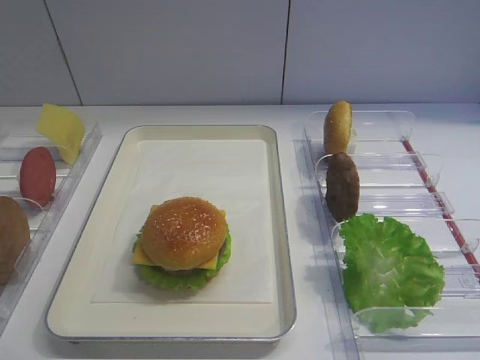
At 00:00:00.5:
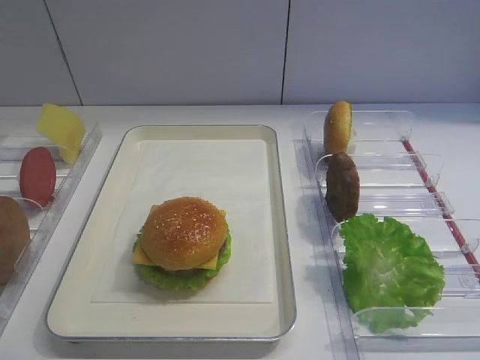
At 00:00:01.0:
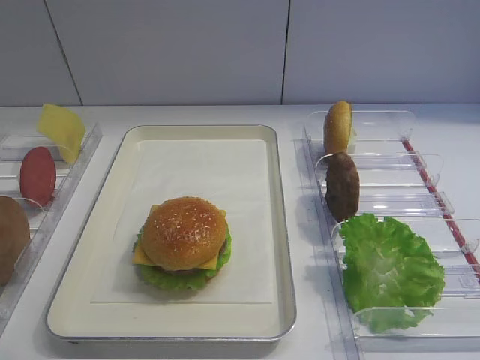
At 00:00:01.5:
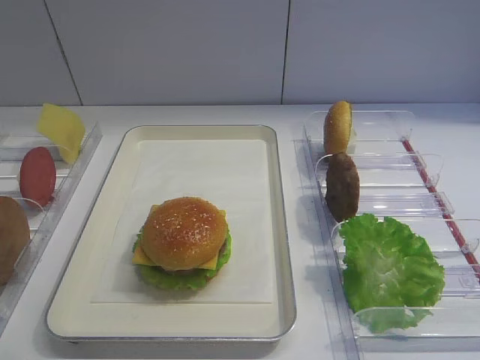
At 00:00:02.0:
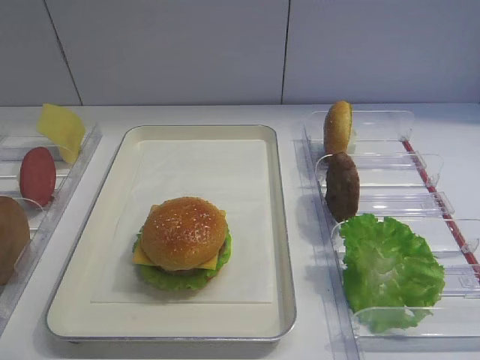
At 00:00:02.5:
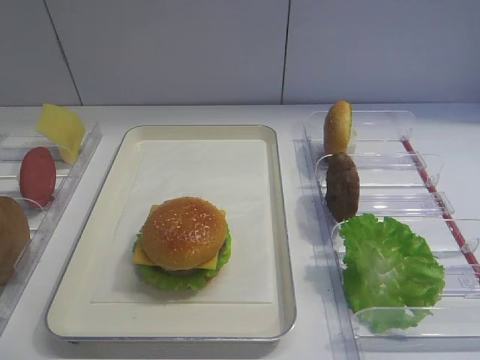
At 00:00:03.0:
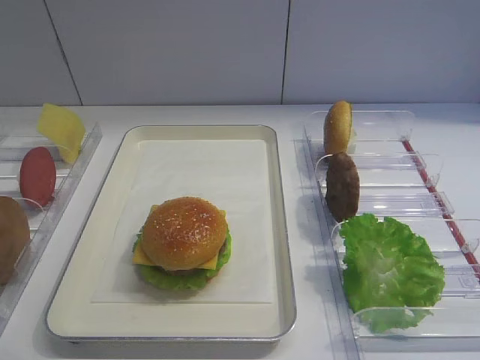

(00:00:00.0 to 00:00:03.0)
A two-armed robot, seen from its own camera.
00:00:00.0 - 00:00:03.0: Both grippers stay about where they are.
